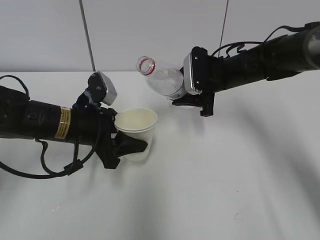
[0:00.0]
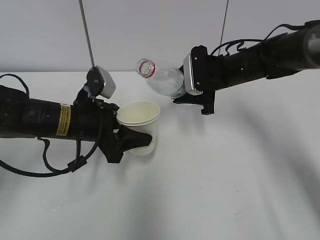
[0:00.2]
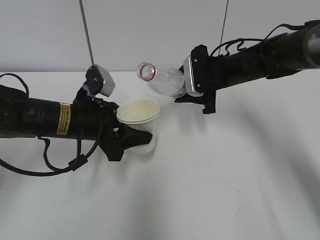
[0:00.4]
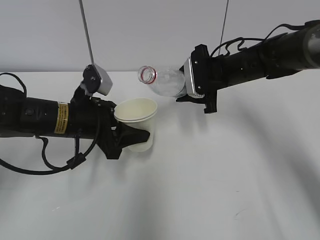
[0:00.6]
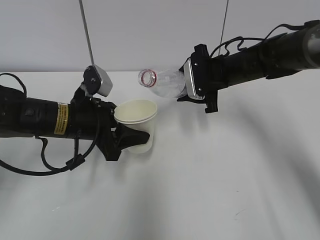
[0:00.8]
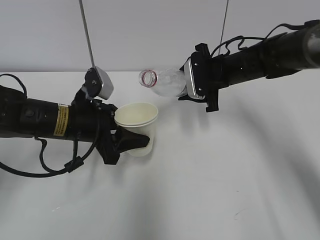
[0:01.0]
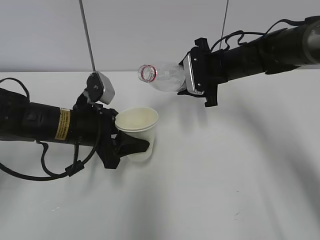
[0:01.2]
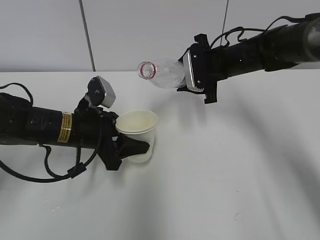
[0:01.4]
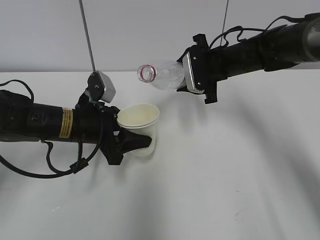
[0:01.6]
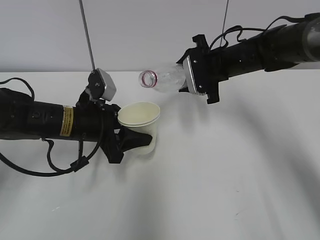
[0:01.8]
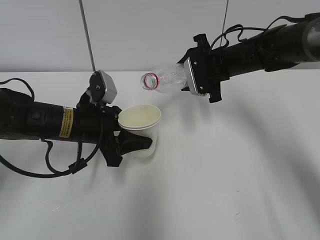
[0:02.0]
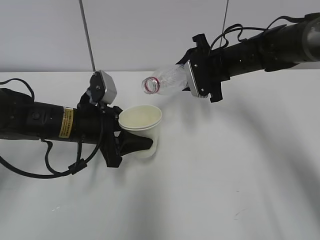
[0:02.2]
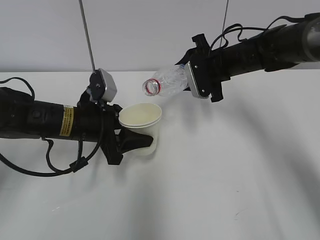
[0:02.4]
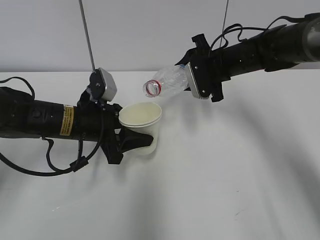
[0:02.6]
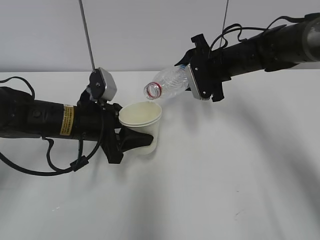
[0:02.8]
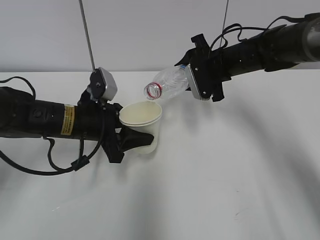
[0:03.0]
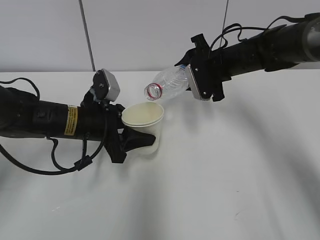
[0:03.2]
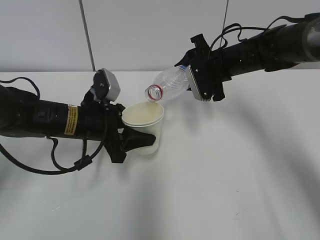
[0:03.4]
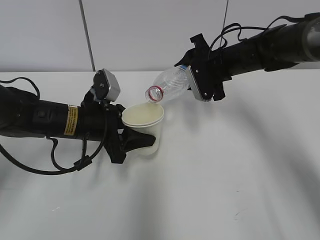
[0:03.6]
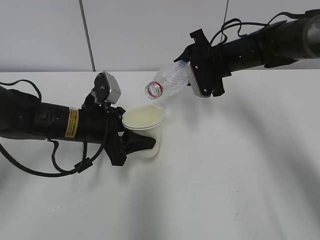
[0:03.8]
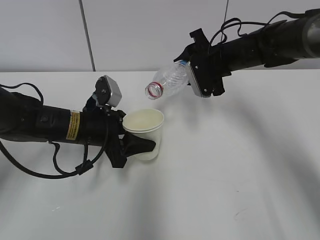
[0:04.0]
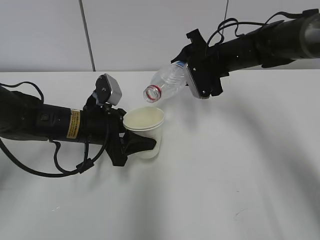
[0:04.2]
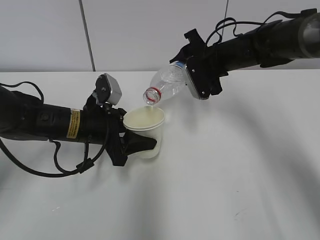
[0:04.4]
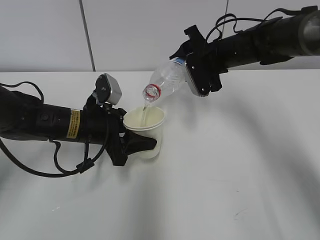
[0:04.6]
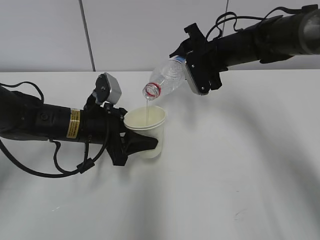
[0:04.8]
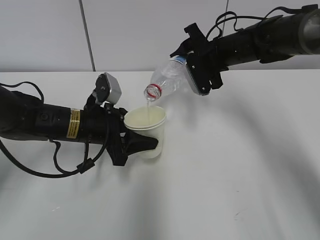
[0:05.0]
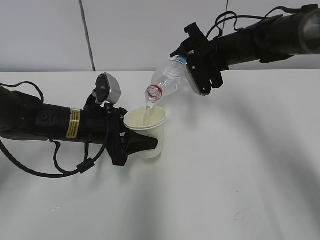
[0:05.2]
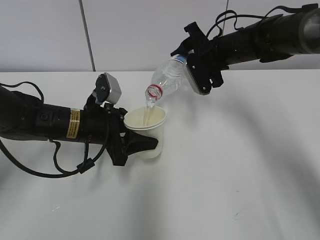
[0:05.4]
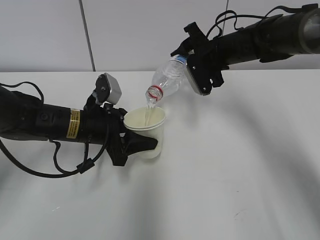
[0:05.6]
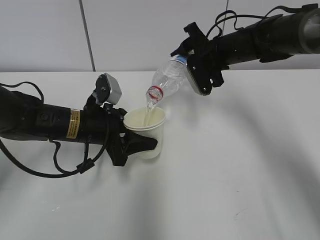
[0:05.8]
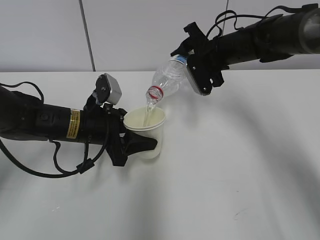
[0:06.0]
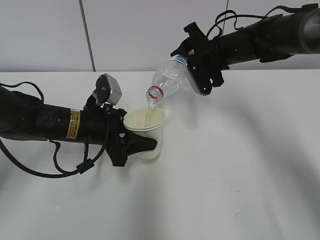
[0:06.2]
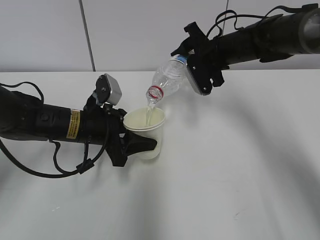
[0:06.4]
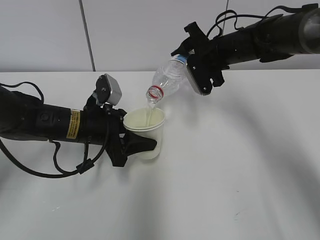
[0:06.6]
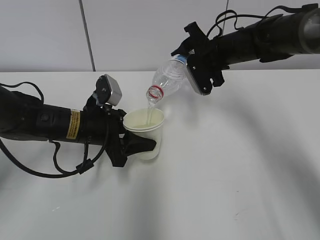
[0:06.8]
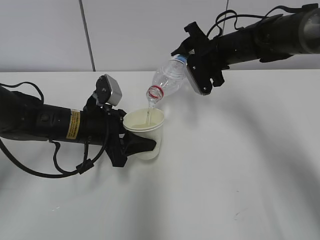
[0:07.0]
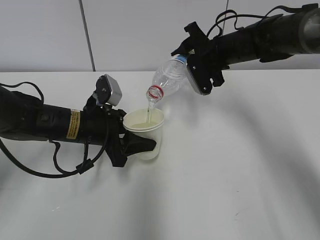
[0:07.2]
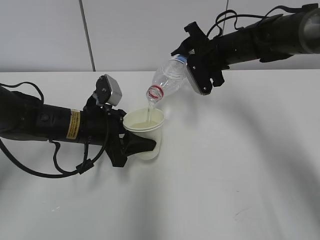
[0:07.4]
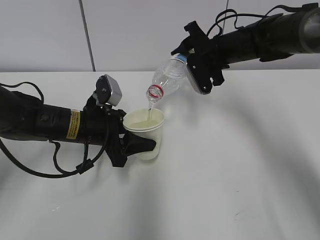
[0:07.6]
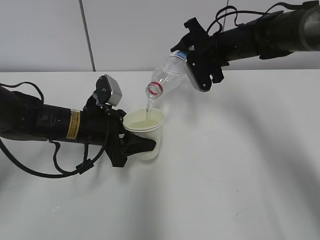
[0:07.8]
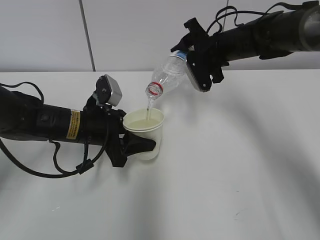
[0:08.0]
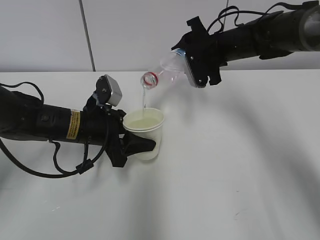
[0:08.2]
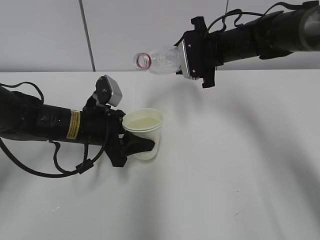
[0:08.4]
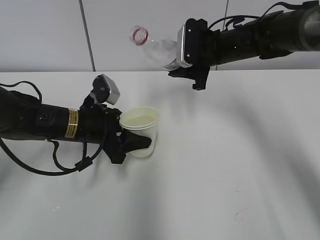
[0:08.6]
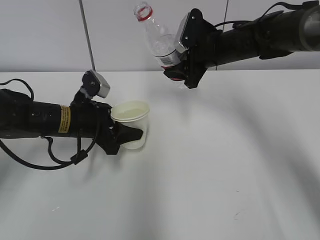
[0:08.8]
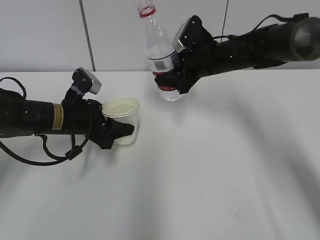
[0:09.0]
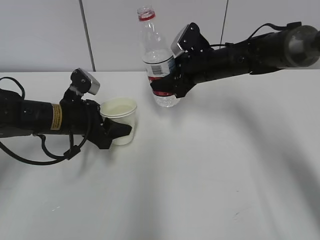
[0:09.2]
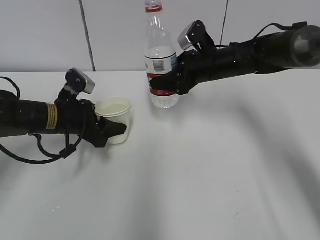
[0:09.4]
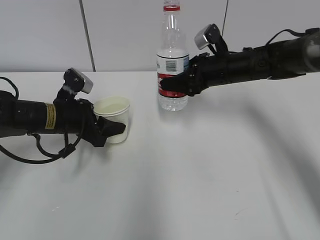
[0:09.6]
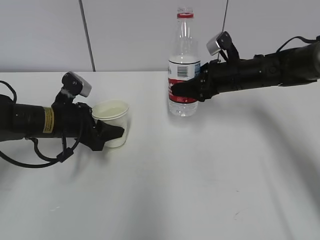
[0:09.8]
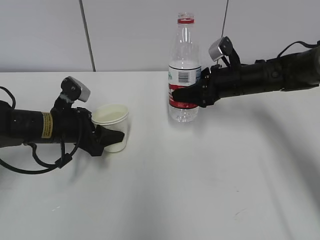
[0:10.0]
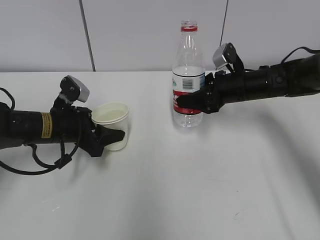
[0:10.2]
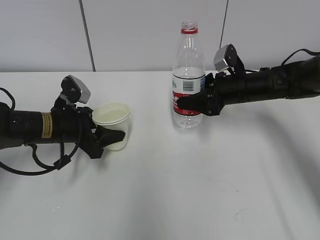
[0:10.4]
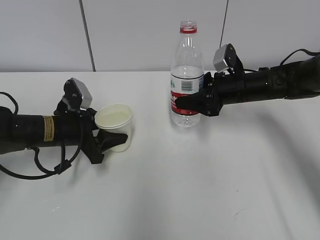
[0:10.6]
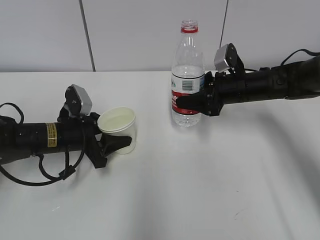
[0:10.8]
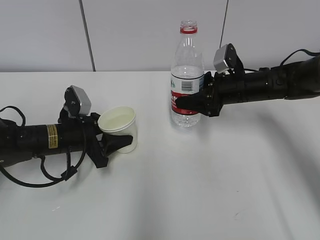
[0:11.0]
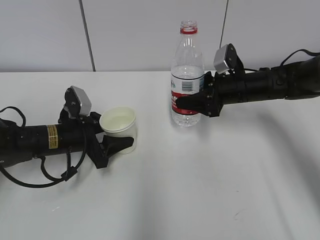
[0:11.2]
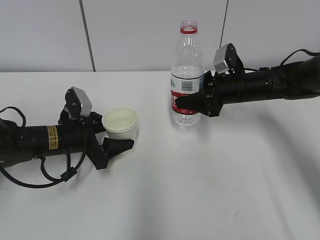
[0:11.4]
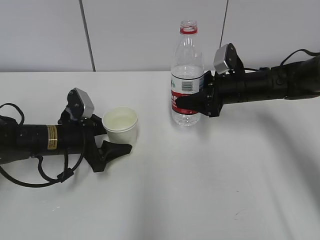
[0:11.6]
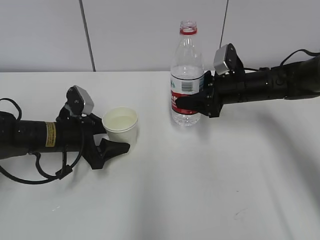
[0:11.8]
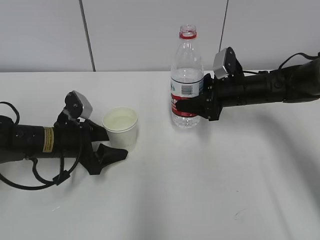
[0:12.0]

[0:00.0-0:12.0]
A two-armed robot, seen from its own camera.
Step, 0:01.4 to 0:04.4: Fill water with the left hand.
Step, 0:01.4 to 0:04.4: Pour water with the right hand.
Step, 0:04.6 to 0:05.2: Collect water with the right hand.
Step, 0:07.0 to 0:08.8: Place the water bottle with the right hand.
0:00.0 to 0:01.6: There are only small adjustments of the grippers.
0:01.6 to 0:03.0: The grippers make only small movements.
0:03.0 to 0:06.0: The grippers move only a little.
0:06.0 to 0:07.6: Neither gripper changes place.
0:09.0 to 0:10.4: The right gripper is displaced downward and to the right by some 10 cm.
0:10.4 to 0:12.0: The grippers stay close to where they were, moving slightly.

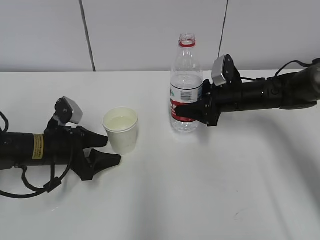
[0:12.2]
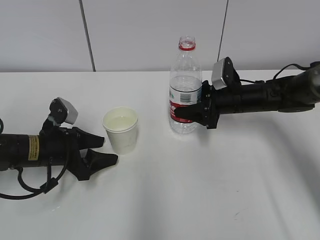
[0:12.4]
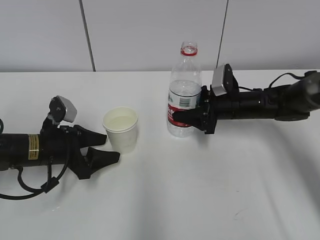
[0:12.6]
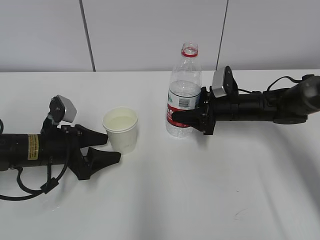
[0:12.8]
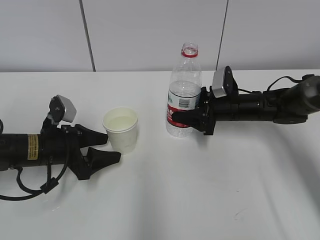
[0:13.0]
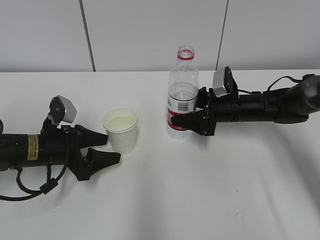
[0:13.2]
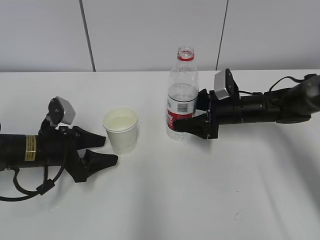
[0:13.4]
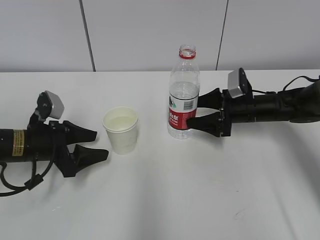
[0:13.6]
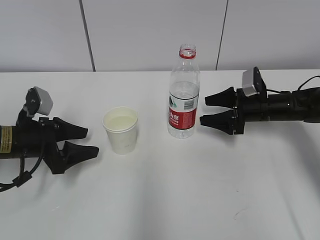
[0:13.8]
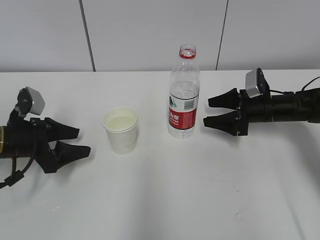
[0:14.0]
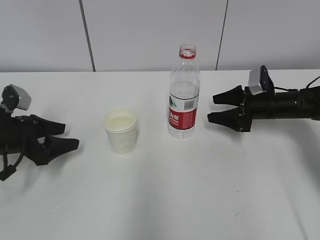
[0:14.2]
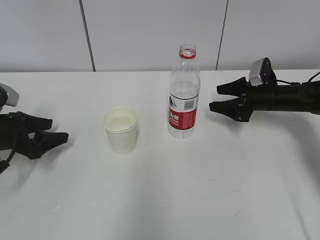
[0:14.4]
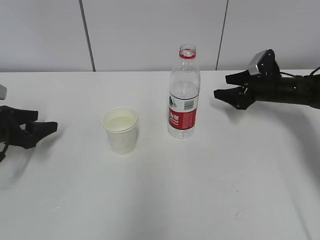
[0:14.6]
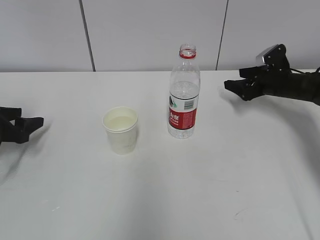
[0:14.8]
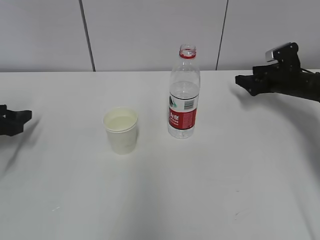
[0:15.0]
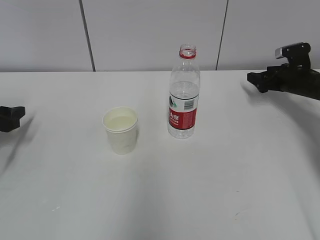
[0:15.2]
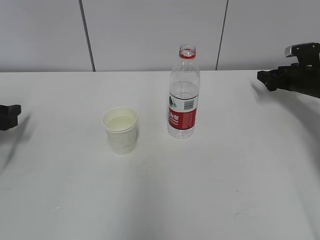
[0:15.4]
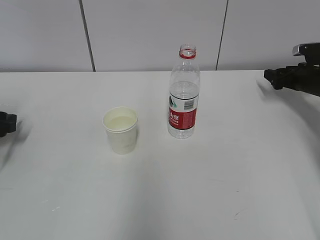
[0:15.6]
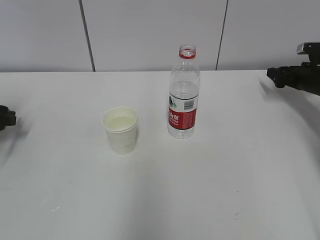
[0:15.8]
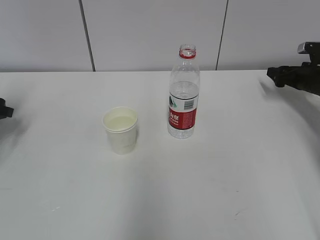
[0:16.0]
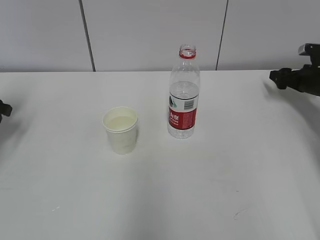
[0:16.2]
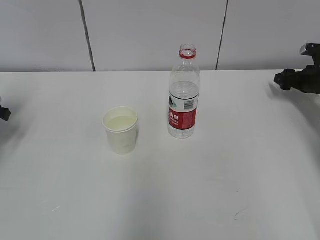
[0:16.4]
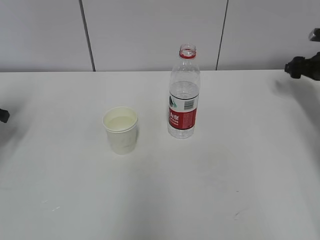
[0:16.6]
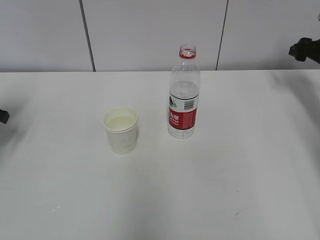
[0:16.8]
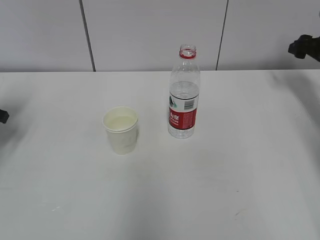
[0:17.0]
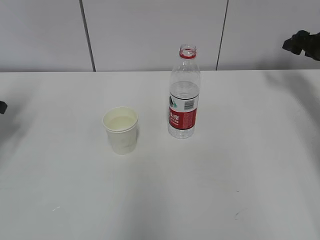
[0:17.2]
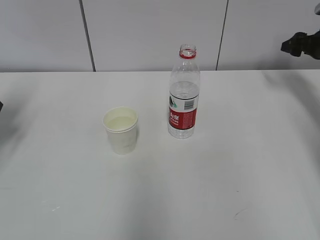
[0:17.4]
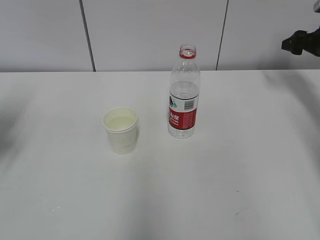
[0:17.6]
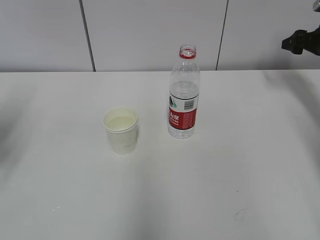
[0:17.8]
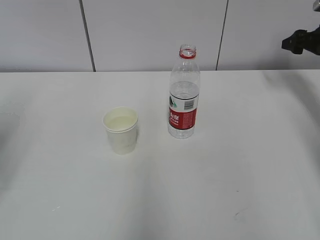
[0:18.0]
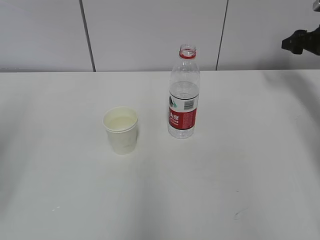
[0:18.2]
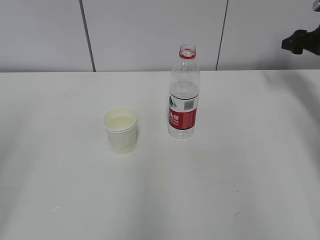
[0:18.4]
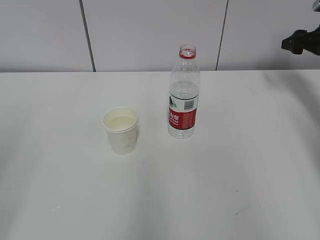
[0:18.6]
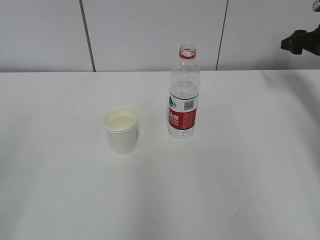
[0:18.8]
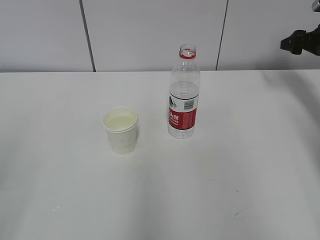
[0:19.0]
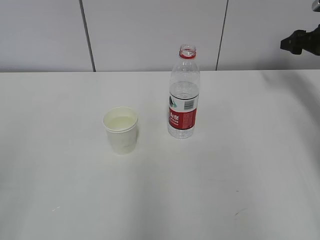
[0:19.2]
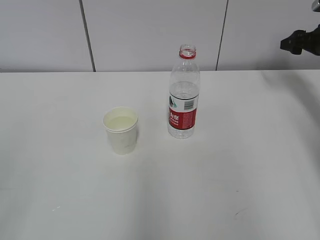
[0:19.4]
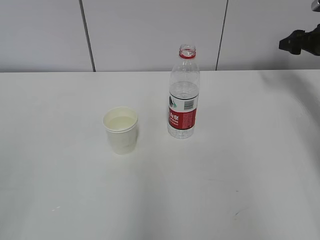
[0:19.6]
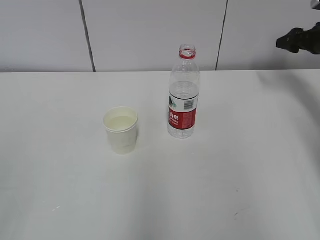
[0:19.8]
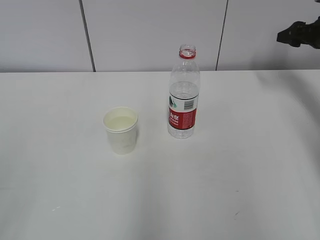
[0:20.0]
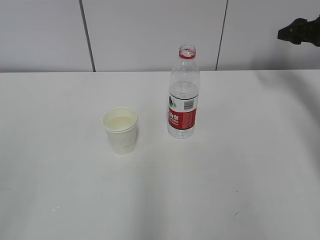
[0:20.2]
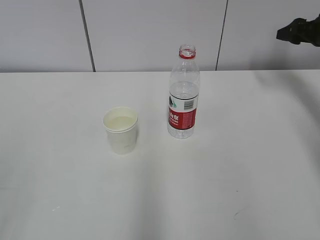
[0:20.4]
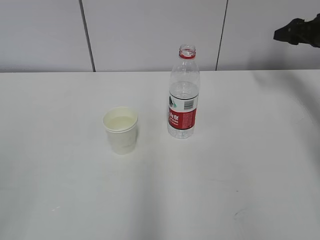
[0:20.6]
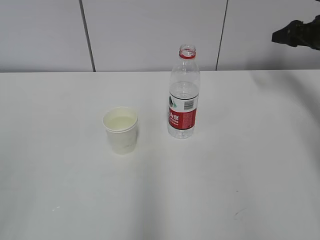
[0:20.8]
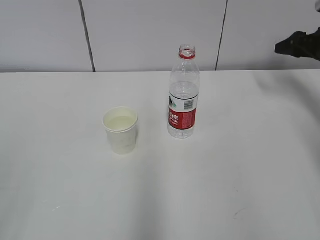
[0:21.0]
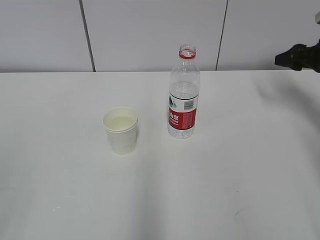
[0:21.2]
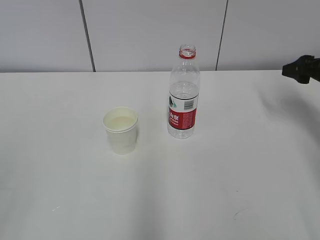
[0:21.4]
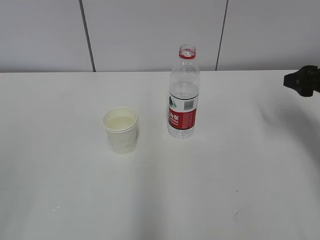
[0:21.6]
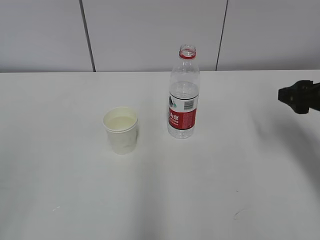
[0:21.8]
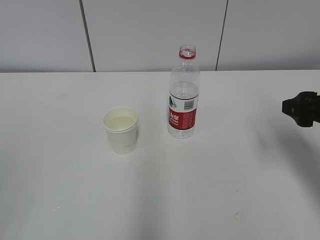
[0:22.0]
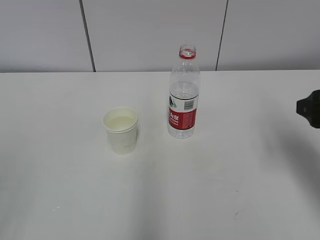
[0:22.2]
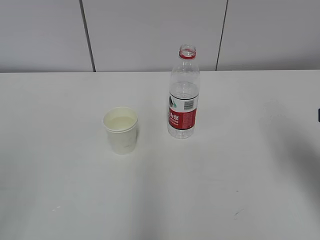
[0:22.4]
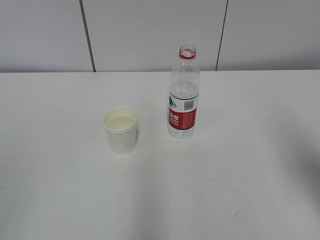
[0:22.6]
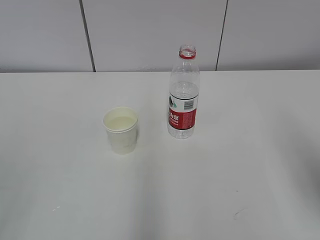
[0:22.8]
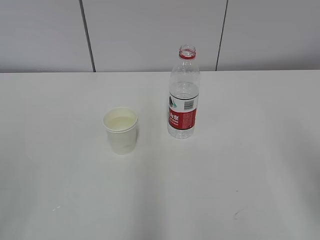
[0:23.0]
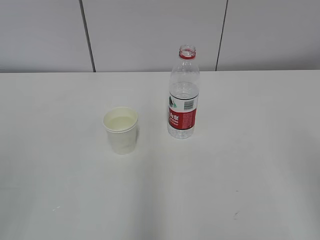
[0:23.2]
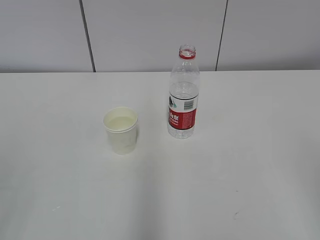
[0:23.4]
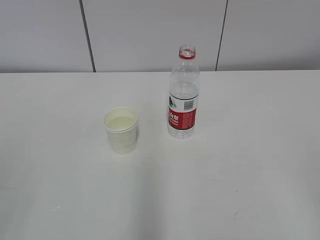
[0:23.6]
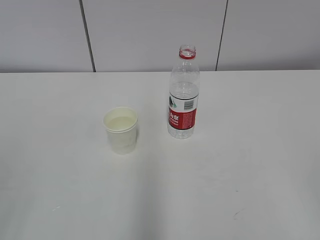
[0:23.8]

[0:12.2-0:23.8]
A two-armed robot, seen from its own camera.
0:12.2 to 0:13.6: The right gripper opens its fingers.
0:13.6 to 0:15.0: The left gripper moves to the left, roughly 15 cm. Meanwhile the right gripper shifts roughly 15 cm to the right and forward.
0:15.0 to 0:16.6: The left gripper goes some 5 cm upward. Meanwhile the right gripper moves to the right, approximately 10 cm.
0:16.6 to 0:18.0: The right gripper travels upward by some 5 cm, while the left gripper heads backward and upward, covering approximately 20 cm.
0:21.0 to 0:22.4: The right gripper goes some 30 cm backward and to the left.
0:22.4 to 0:23.8: The right gripper moves backward, approximately 25 cm.
